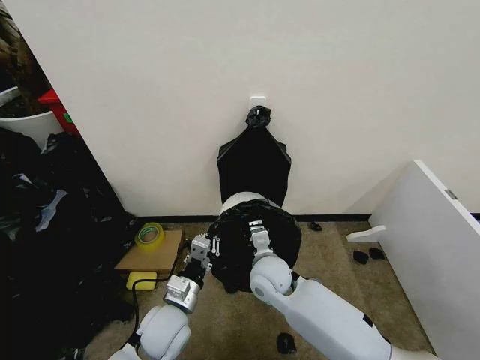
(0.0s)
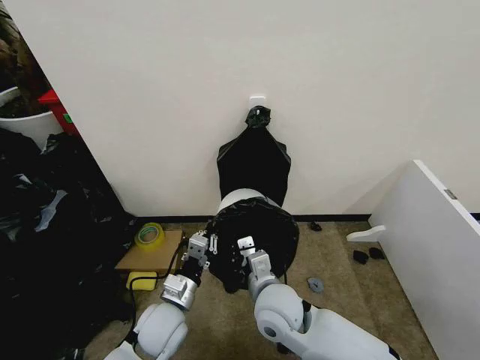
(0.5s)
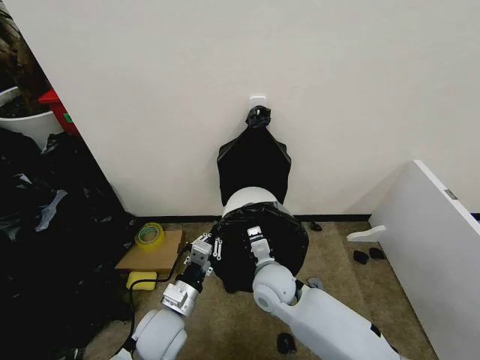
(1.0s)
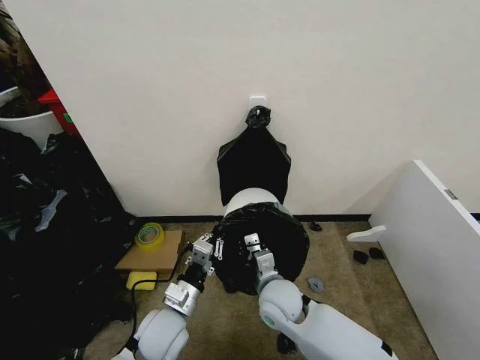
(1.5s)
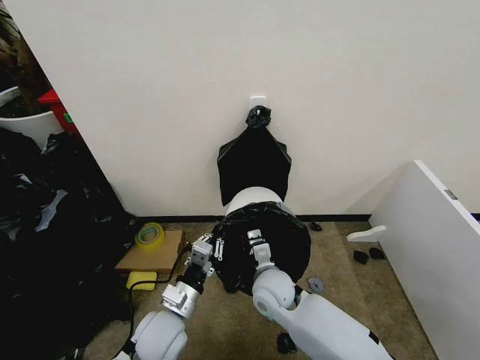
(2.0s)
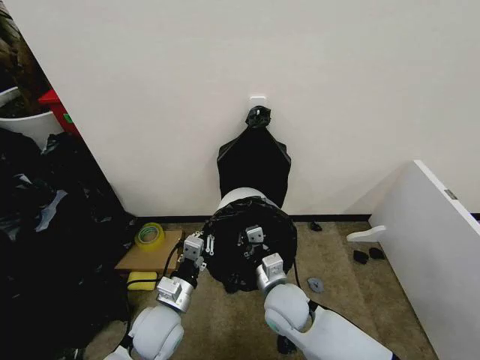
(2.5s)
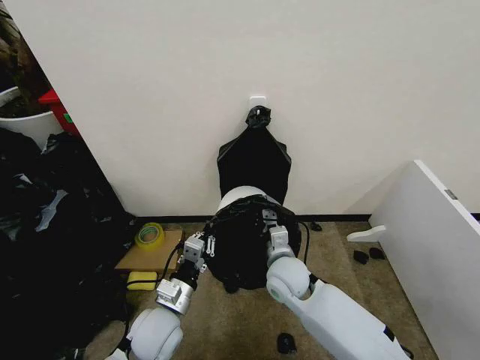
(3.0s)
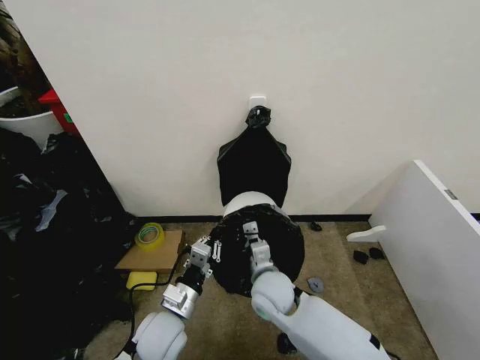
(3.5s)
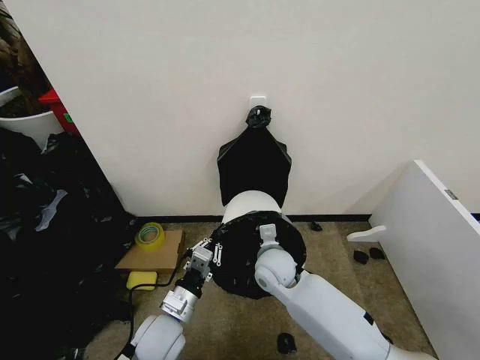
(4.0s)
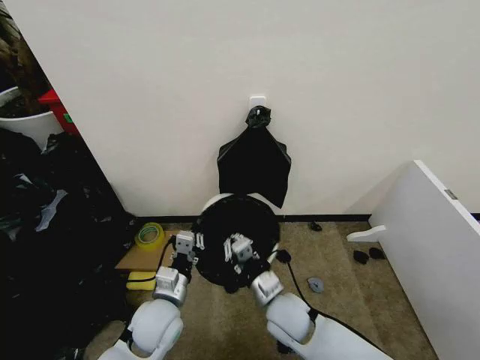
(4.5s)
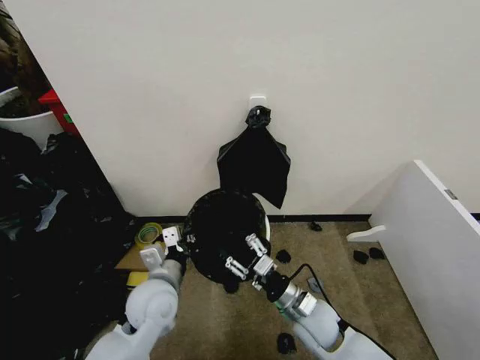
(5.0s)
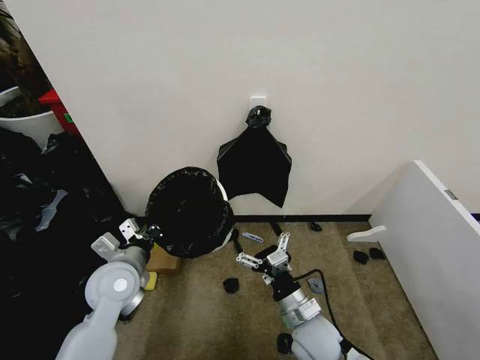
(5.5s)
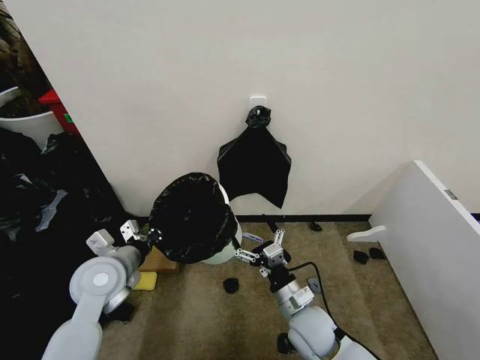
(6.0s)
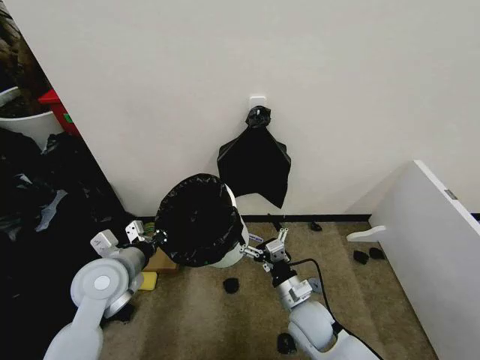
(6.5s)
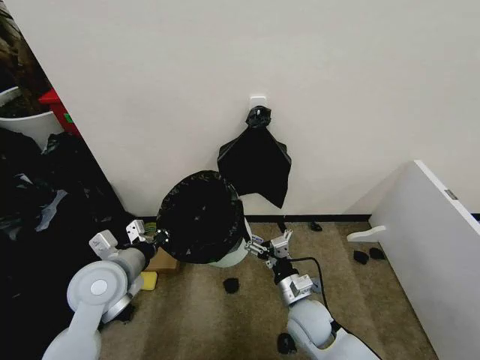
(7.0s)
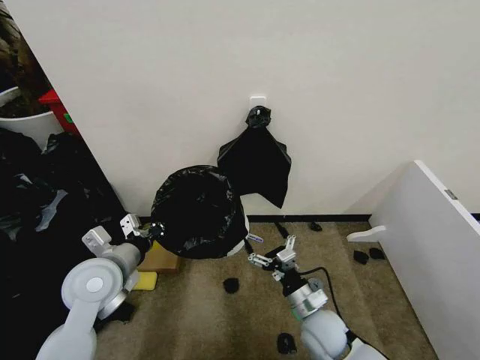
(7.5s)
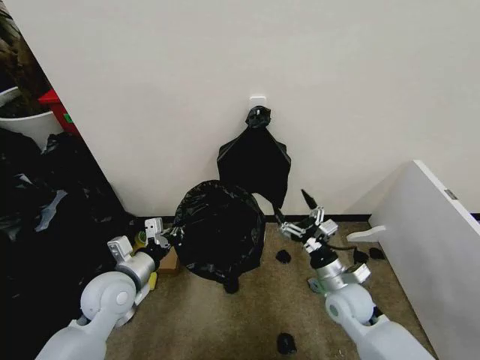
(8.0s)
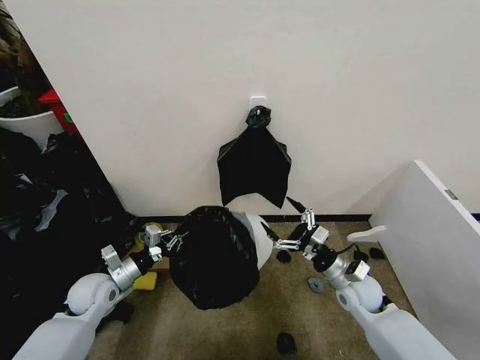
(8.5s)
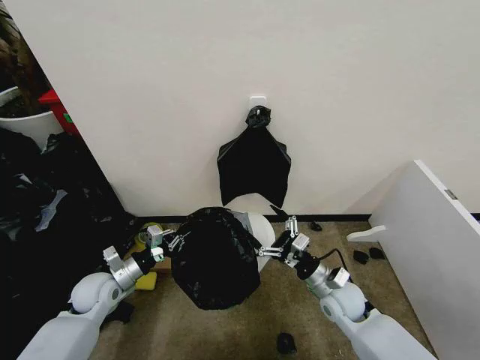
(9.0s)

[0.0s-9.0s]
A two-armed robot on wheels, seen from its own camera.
Task of the whole recording: Place the garbage bag over the trash bin.
2.0s to 4.5s: The right gripper shifts by roughly 5 cm.
4.5s to 7.0s: The left gripper shifts approximately 15 cm upward and to the left; the right gripper shifts some 5 cm to the right, and opens its fingers.
7.0s to 9.0s: The left gripper heads downward and to the left, covering approximately 15 cm, while the right gripper moves to the right, roughly 10 cm.

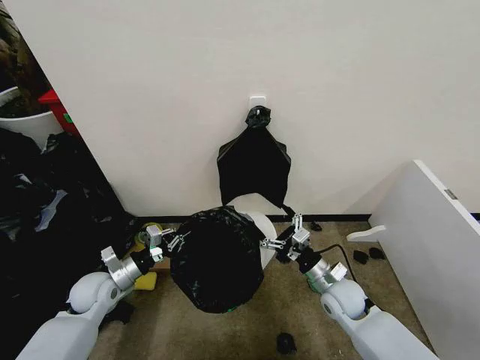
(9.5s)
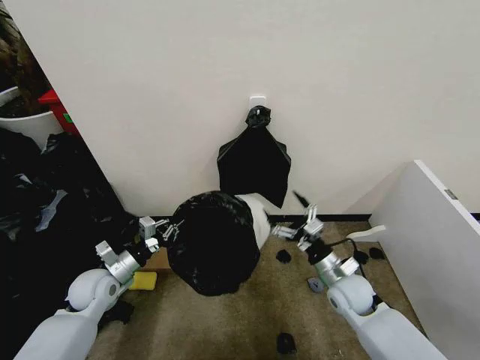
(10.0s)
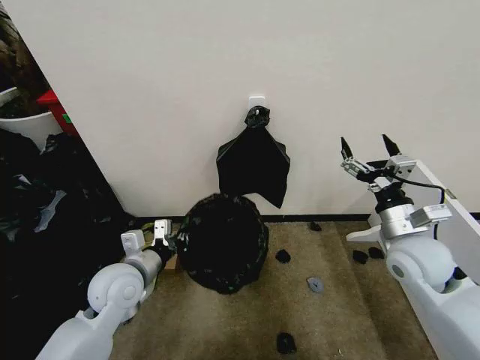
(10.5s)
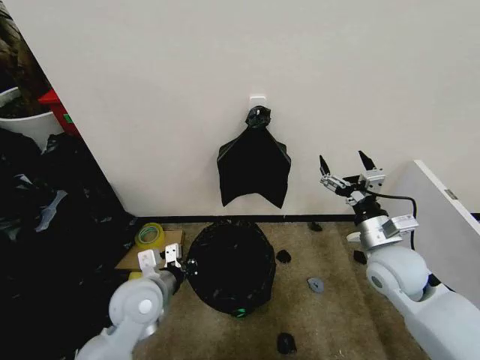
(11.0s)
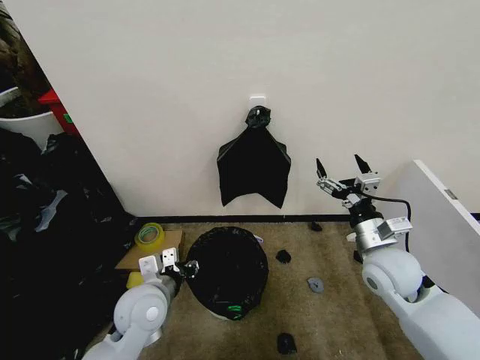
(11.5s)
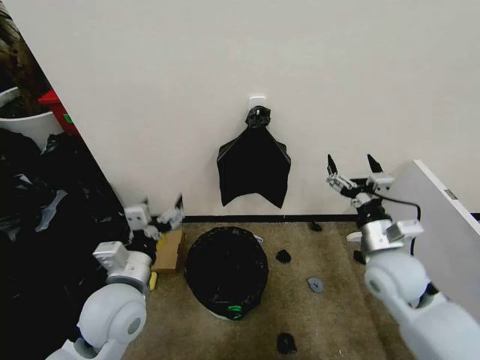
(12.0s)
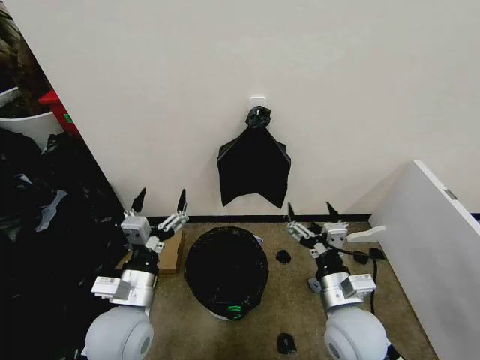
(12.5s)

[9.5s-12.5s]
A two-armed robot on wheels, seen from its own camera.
Task of the whole recording: Place the garbage bag over the trash bin.
9.5s to 11.0s: The left gripper moves to the right and upward, approximately 15 cm, while the right gripper shifts about 15 cm upward.
11.0s to 12.5s: The right gripper moves to the left, backward and downward, roughly 15 cm. The left gripper is displaced backward by approximately 5 cm, and opens its fingers.

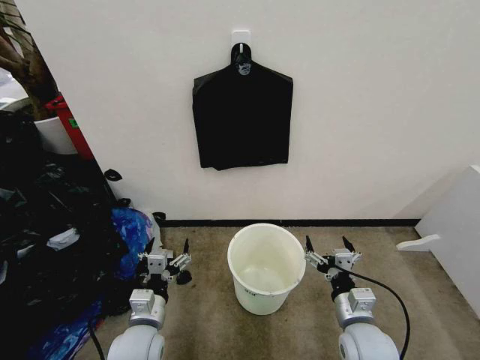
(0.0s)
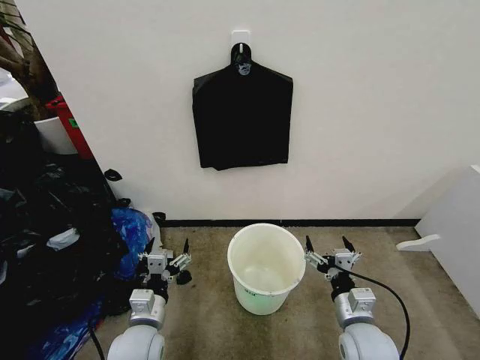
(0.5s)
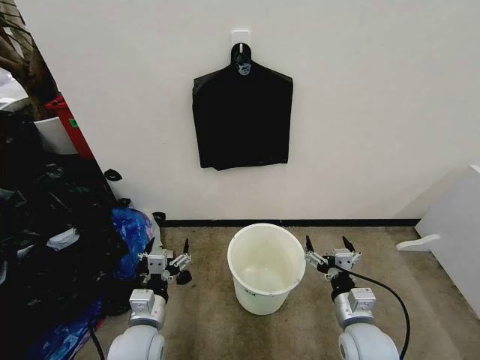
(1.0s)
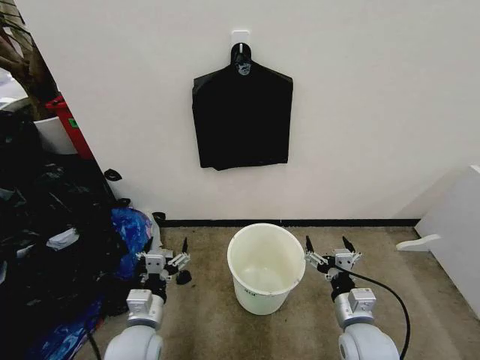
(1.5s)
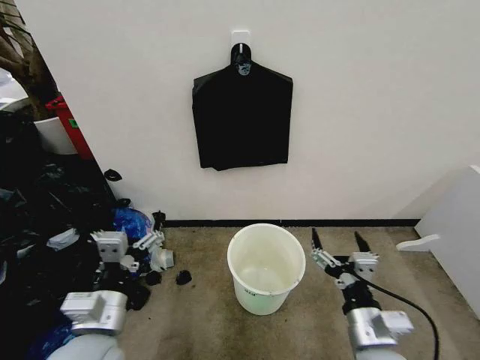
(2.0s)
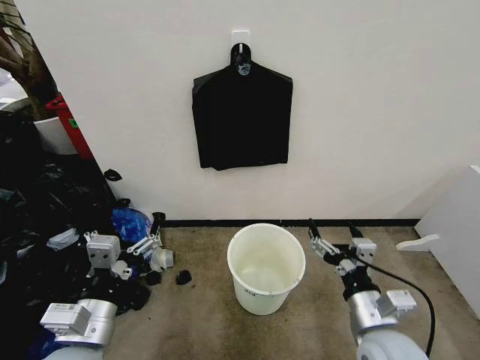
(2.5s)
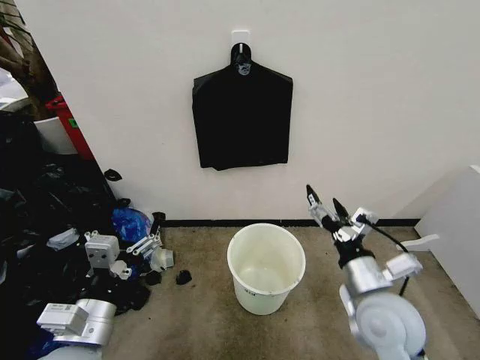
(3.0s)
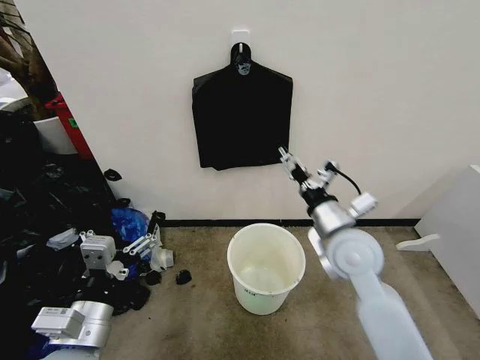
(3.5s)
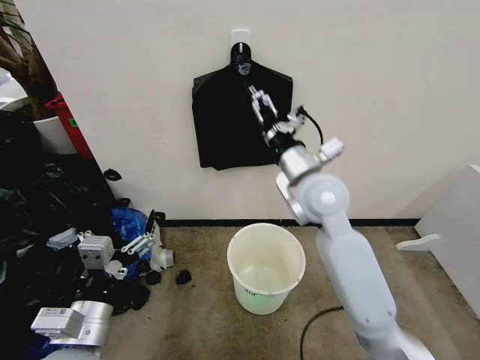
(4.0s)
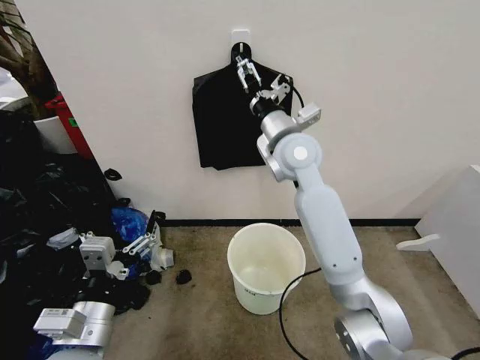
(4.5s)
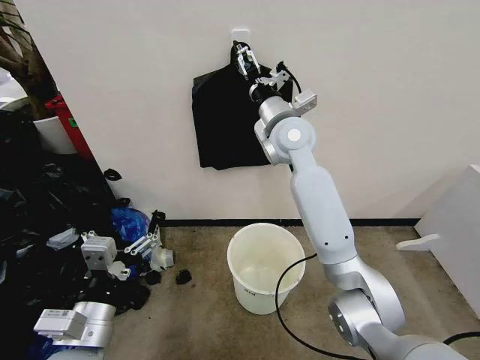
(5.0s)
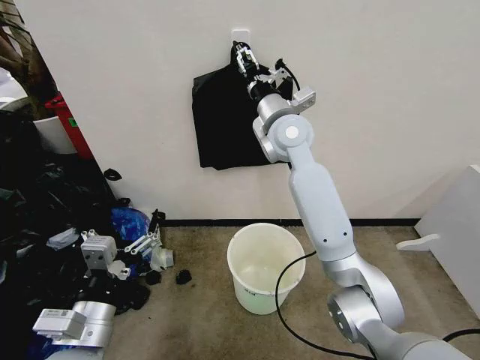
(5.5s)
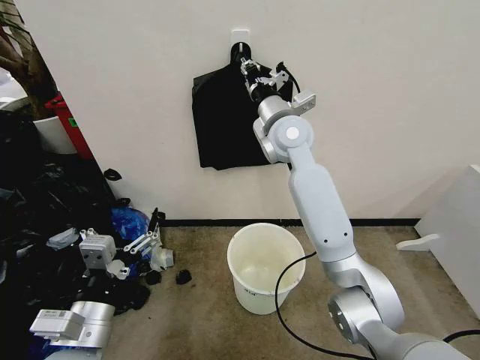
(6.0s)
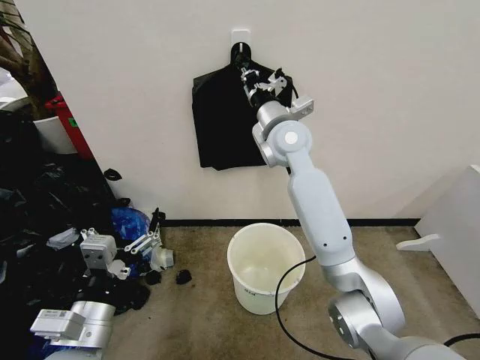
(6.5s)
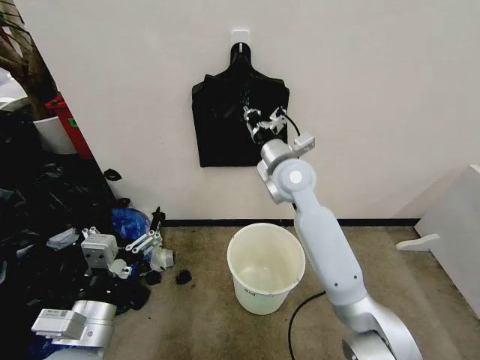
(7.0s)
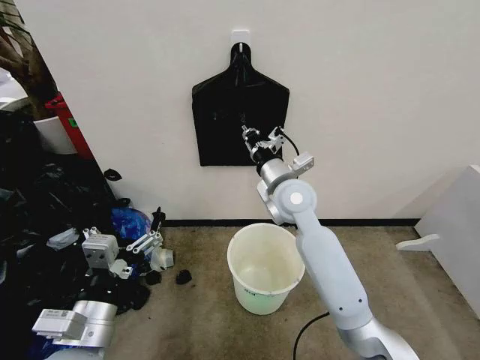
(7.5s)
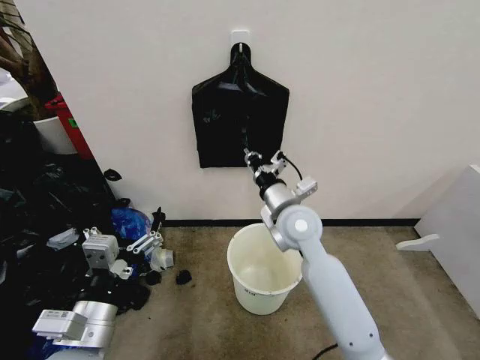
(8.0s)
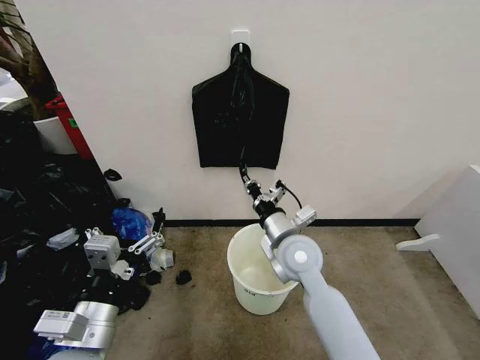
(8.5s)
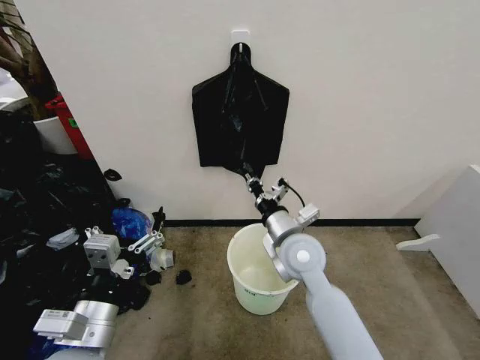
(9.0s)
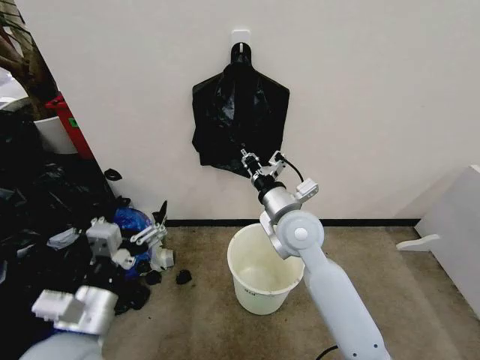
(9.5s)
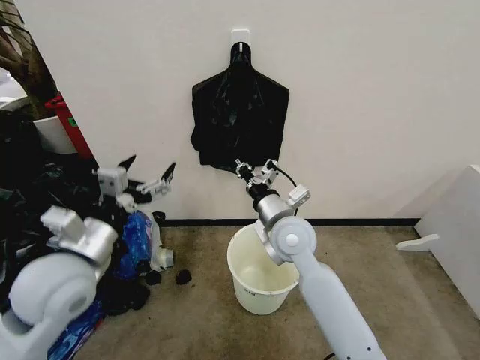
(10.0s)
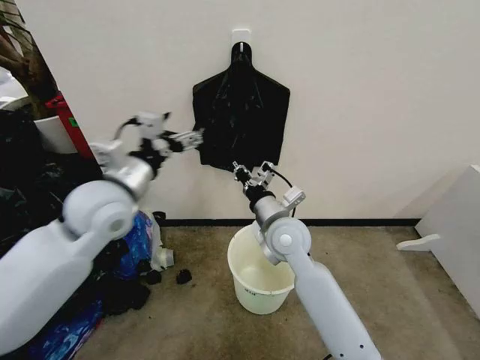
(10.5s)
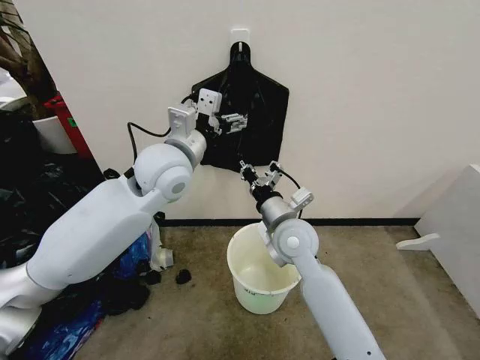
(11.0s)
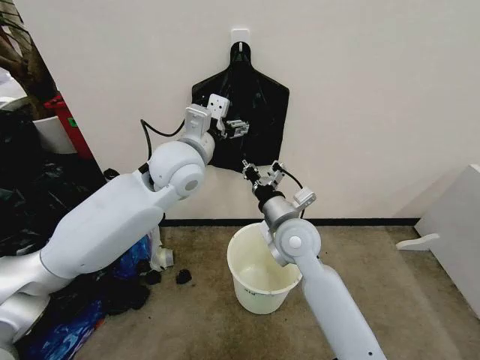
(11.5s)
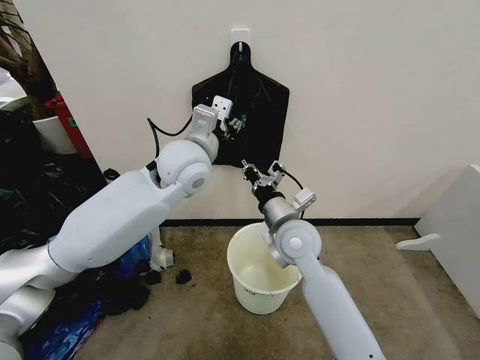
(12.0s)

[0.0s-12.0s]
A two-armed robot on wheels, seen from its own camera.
Task of the whole recording: Place the garbage bag over the trash bin.
2.0s to 4.0s: The right gripper heads forward and upward, covering about 30 cm.
4.0s to 6.0s: The right gripper heads forward and upward, covering some 15 cm, and closes.
6.0s to 8.0s: The right gripper travels downward and backward by roughly 20 cm.
8.0s to 10.0s: The left gripper is displaced forward and upward by some 15 cm.
10.0s to 12.0s: The left gripper is displaced forward and to the right by roughly 25 cm, and closes its fingers.

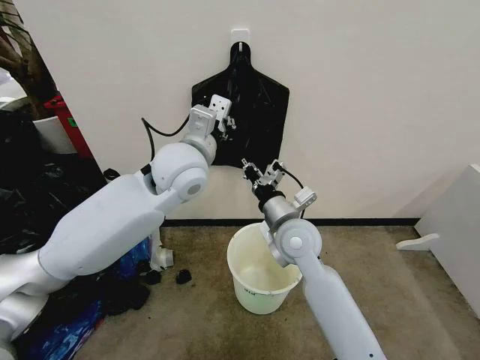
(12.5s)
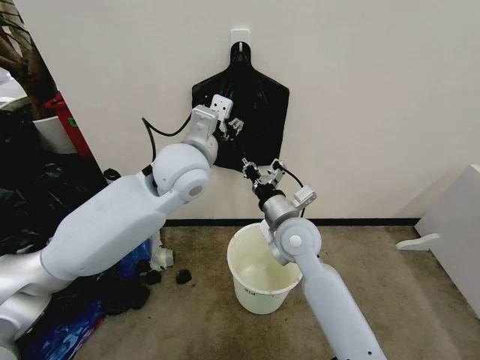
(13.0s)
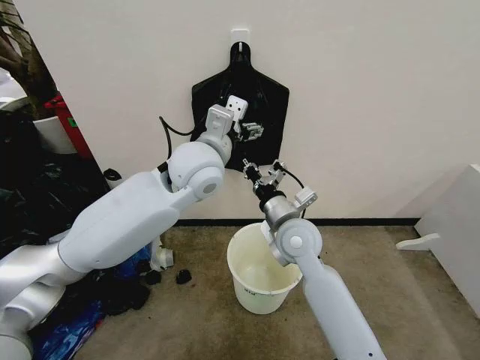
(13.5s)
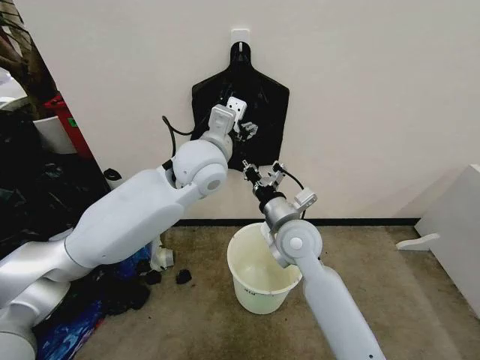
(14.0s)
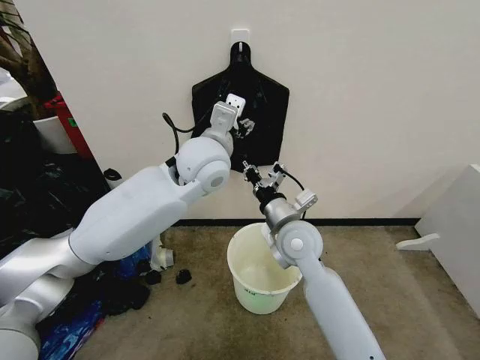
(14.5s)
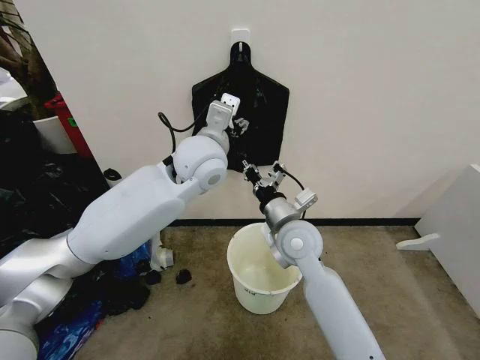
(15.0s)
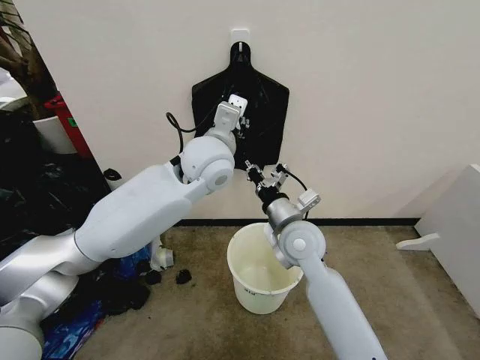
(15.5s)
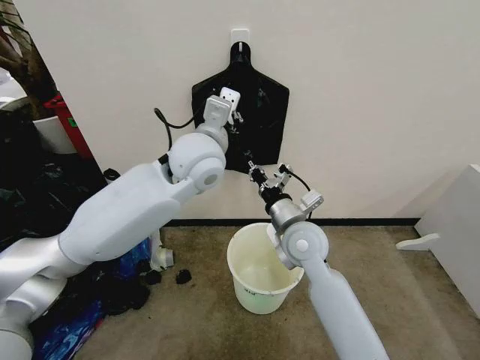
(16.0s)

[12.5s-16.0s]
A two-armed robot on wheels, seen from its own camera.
Task of the whole recording: Place the garbage bag over the trash bin.
12.5s to 14.5s: The left gripper opens its fingers.
14.5s to 16.0s: The left gripper closes.
